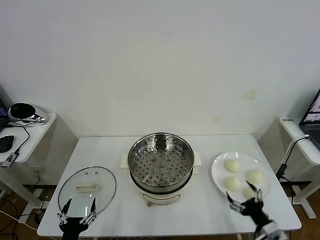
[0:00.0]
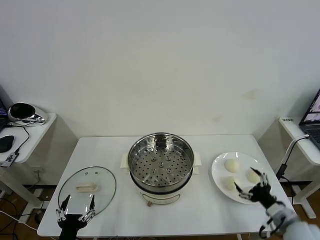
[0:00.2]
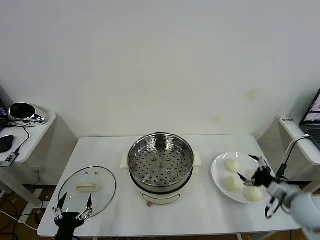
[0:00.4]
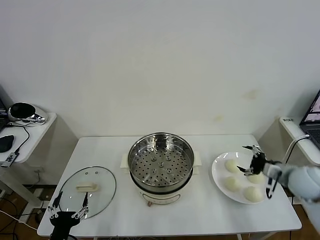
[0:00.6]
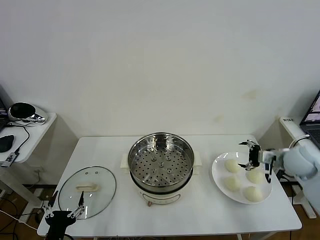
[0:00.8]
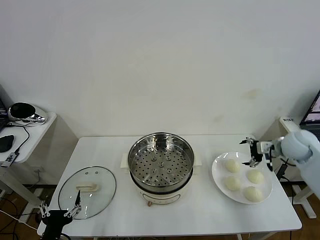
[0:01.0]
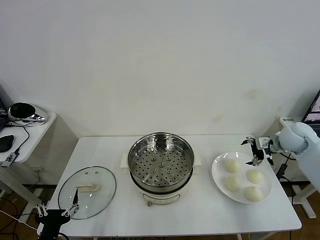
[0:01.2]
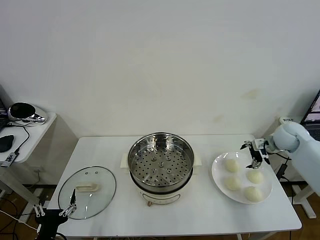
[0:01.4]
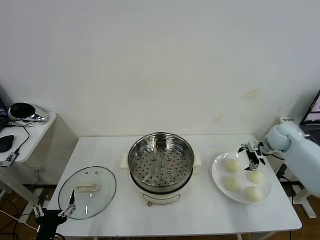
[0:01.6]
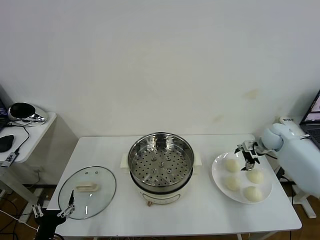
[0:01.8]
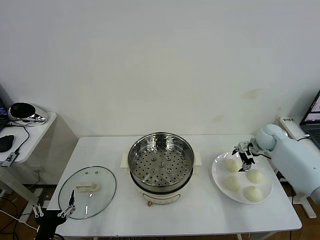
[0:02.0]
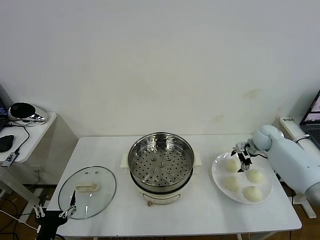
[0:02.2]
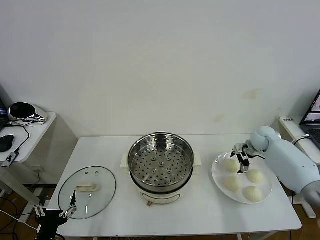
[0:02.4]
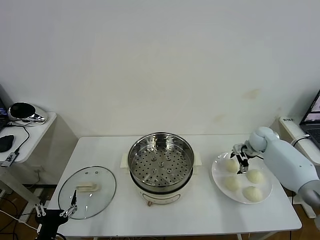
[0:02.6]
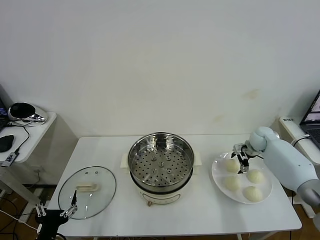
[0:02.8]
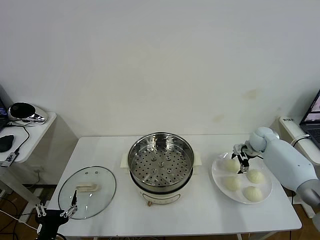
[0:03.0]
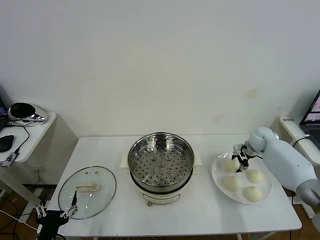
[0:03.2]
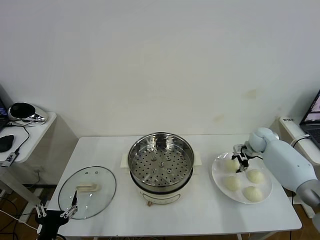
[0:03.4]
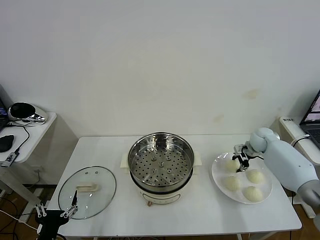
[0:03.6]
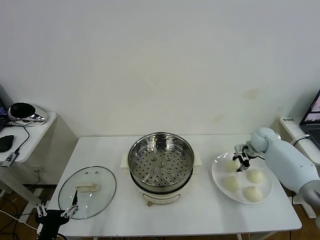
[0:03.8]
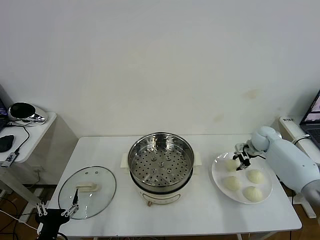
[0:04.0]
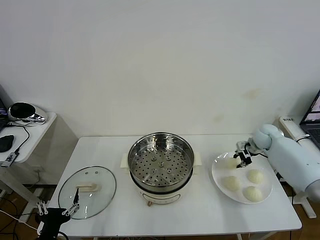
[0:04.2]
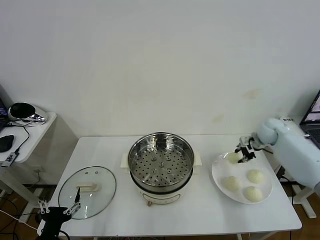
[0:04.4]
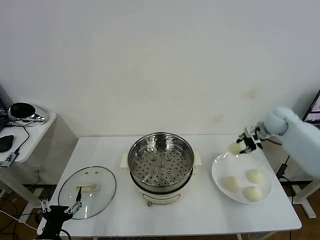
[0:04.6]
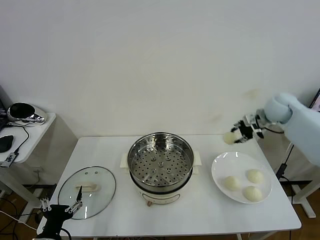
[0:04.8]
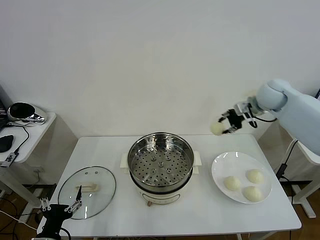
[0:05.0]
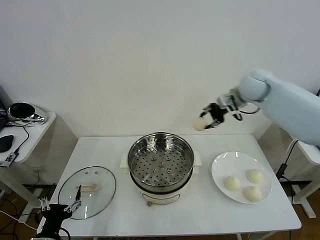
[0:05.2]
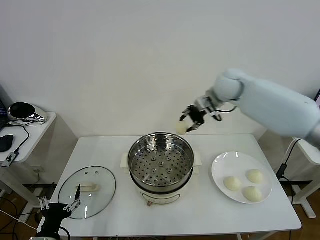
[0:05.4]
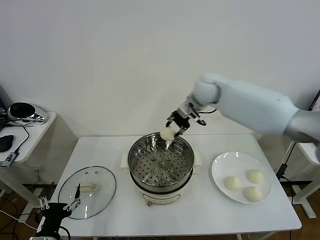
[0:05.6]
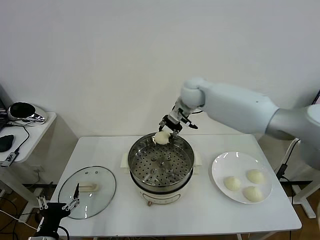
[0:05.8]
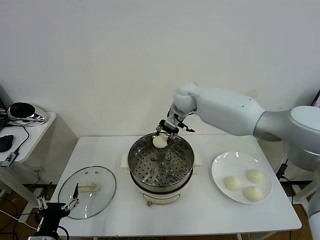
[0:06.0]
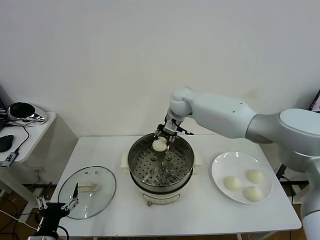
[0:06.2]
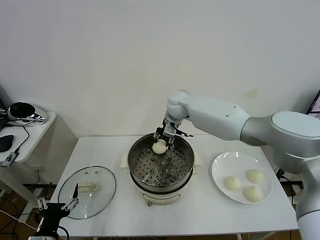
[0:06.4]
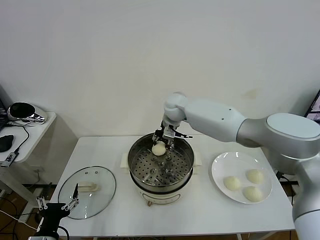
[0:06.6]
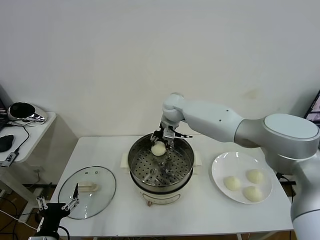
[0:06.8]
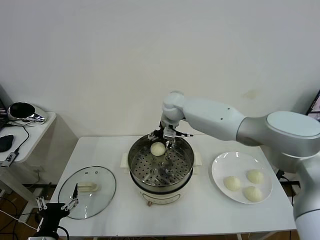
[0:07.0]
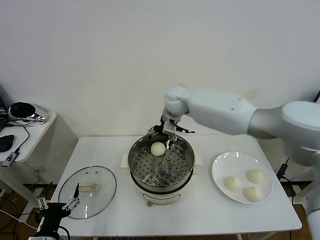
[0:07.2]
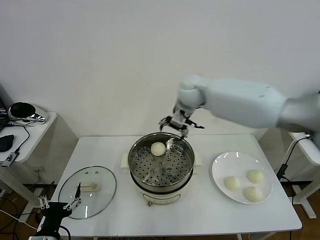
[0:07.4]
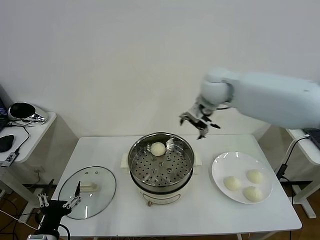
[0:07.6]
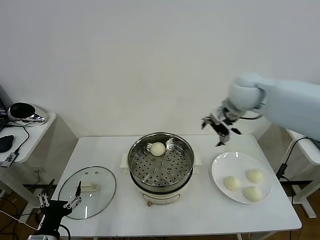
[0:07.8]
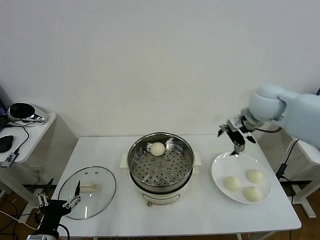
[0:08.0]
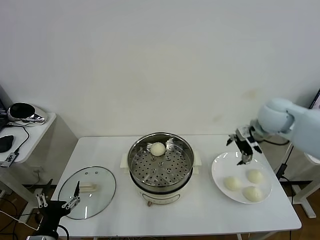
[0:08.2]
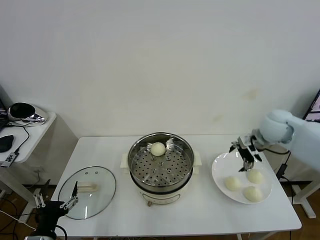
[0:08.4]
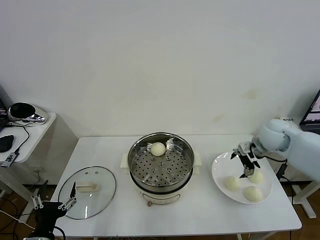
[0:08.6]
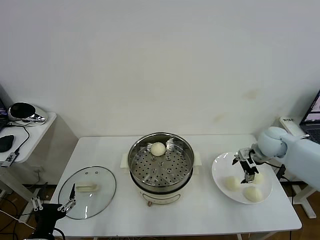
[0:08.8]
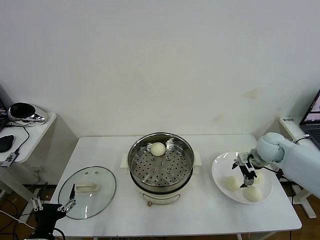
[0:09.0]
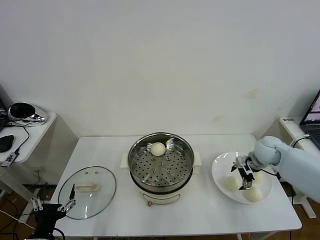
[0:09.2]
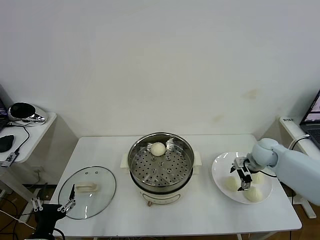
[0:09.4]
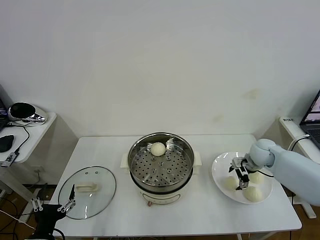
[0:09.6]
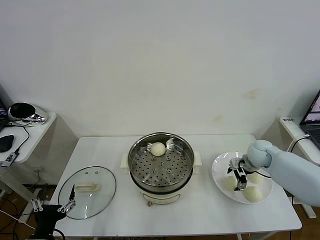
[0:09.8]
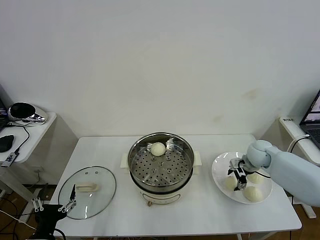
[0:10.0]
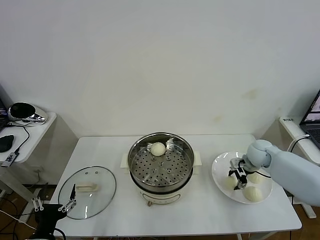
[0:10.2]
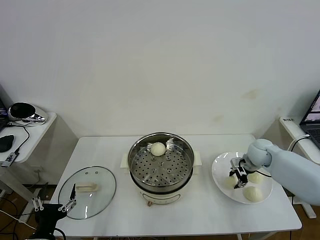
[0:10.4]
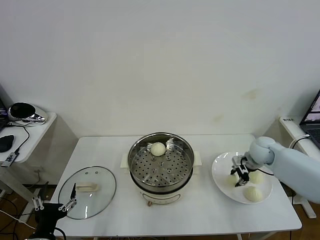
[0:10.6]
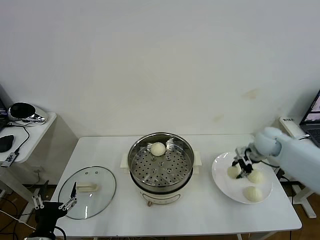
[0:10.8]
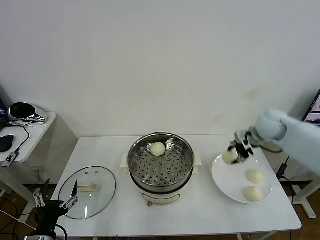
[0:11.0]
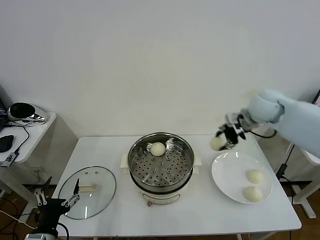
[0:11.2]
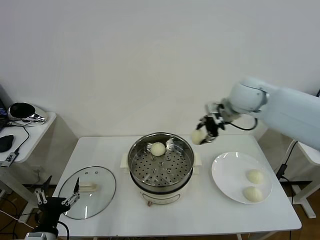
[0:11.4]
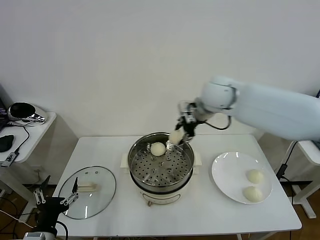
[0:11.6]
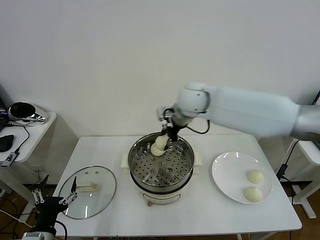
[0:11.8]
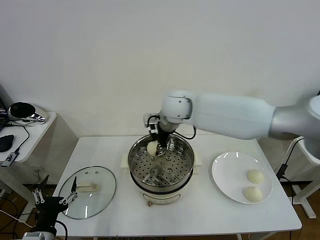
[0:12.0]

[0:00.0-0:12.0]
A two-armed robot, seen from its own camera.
Task of the whole recording: take steamed baozi put them in steamer then cover it.
Step, 0:00.0 to 0:03.4: Grasp the baozi in the plate with right gripper.
Step, 0:03.6 to 0:06.8: Place the baozi on the steamer with right gripper.
Step, 0:07.0 to 0:10.4: Grasp the baozi in the plate with right gripper.
0:01.6 to 0:03.0: The right gripper moves downward, about 5 cm, and closes its fingers.
0:03.0 to 0:04.4: The right gripper is displaced upward by approximately 10 cm, and closes its fingers.
0:04.4 to 0:06.0: The right gripper travels to the left by roughly 35 cm.
0:06.0 to 0:07.6: The right gripper travels to the right, upward and backward by about 20 cm, and opens.
0:07.6 to 0:09.0: The right gripper goes approximately 30 cm downward and to the right.
0:09.0 to 0:10.4: The right gripper closes.
0:10.4 to 0:12.0: The right gripper is displaced to the left and upward by roughly 40 cm.

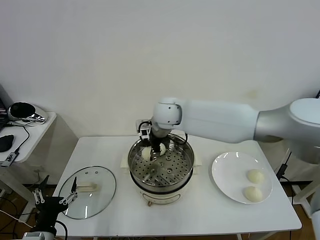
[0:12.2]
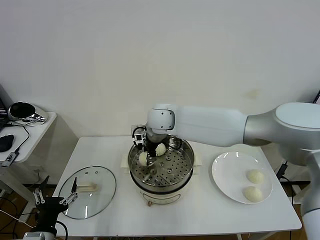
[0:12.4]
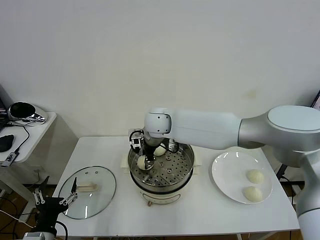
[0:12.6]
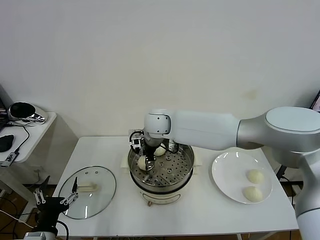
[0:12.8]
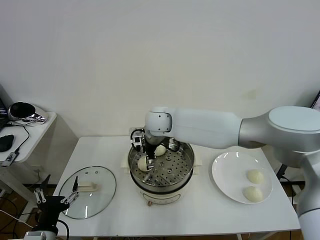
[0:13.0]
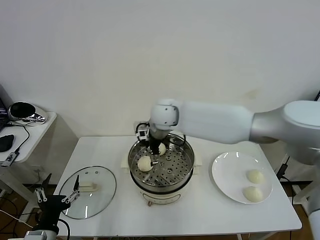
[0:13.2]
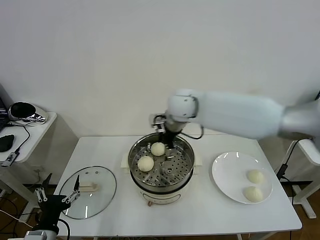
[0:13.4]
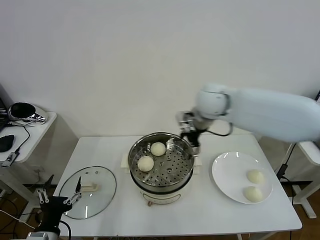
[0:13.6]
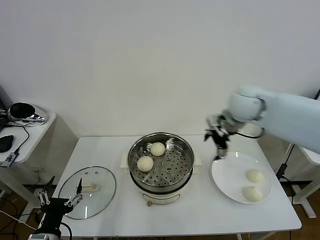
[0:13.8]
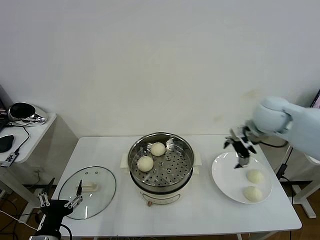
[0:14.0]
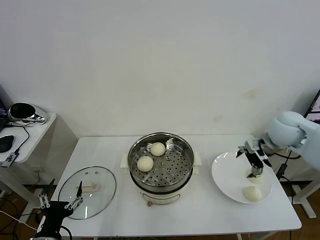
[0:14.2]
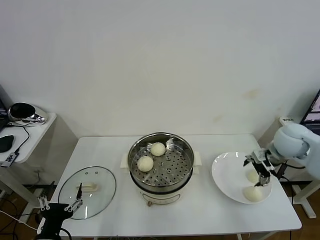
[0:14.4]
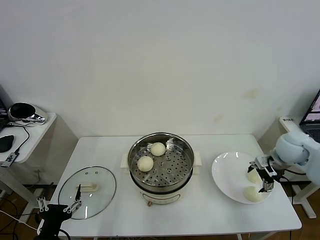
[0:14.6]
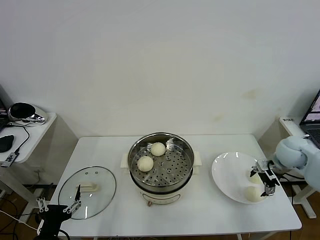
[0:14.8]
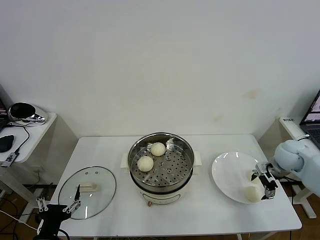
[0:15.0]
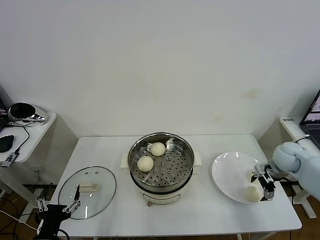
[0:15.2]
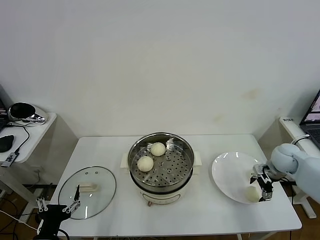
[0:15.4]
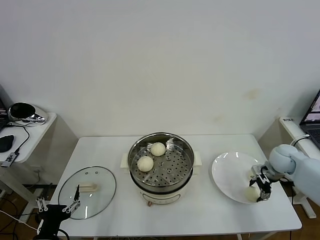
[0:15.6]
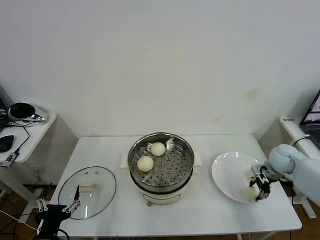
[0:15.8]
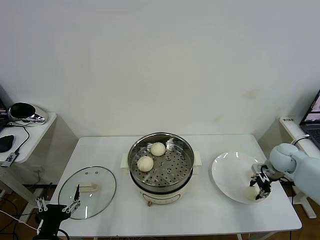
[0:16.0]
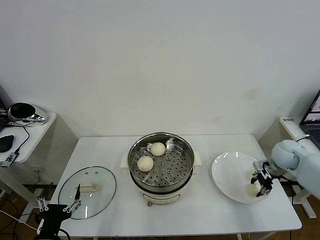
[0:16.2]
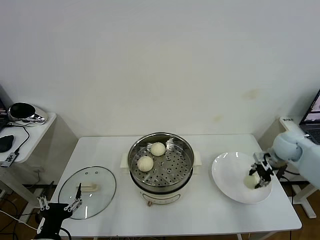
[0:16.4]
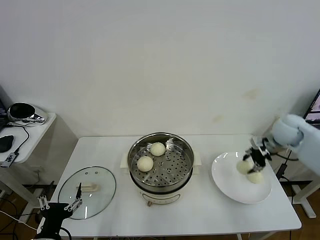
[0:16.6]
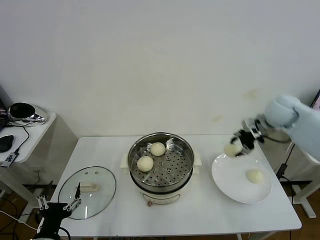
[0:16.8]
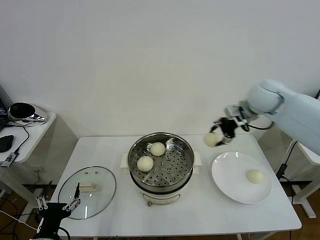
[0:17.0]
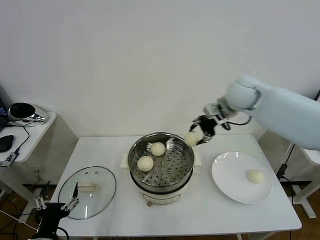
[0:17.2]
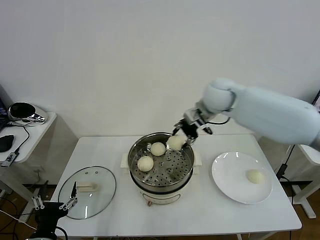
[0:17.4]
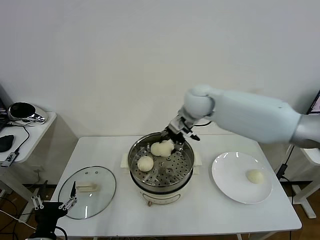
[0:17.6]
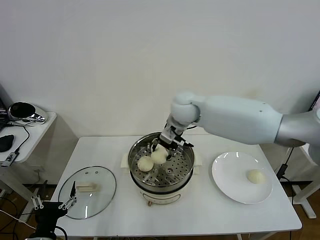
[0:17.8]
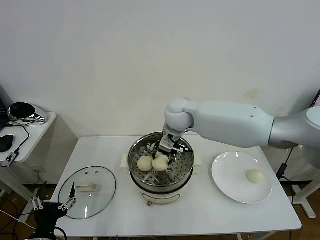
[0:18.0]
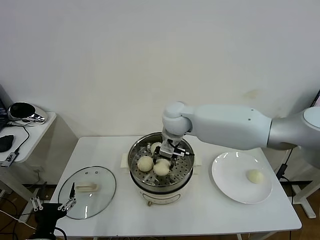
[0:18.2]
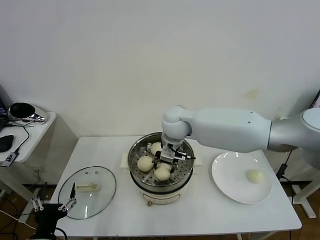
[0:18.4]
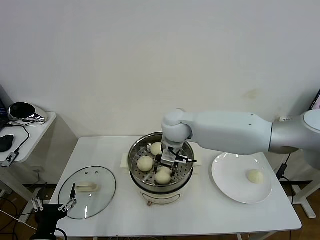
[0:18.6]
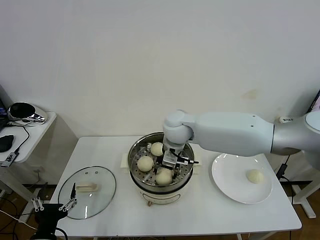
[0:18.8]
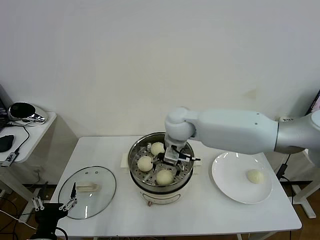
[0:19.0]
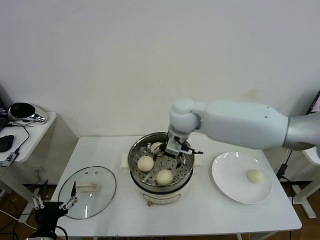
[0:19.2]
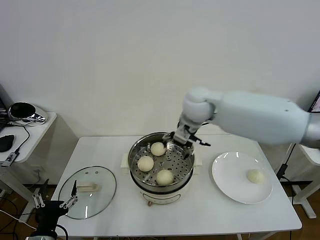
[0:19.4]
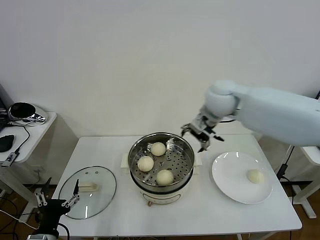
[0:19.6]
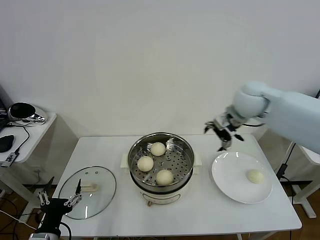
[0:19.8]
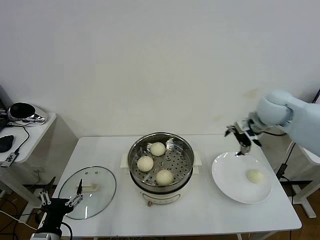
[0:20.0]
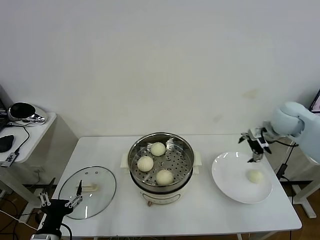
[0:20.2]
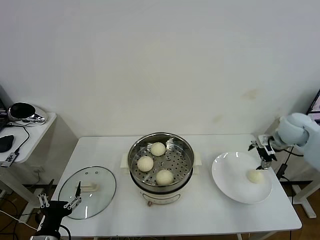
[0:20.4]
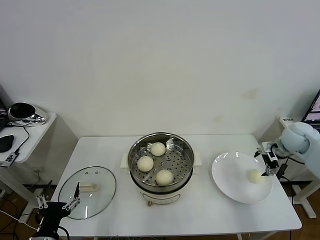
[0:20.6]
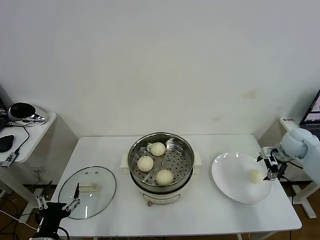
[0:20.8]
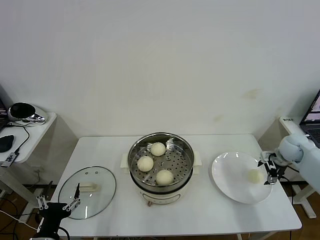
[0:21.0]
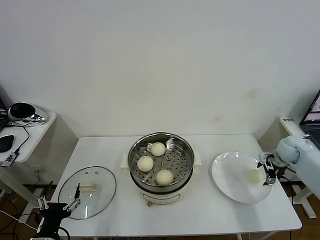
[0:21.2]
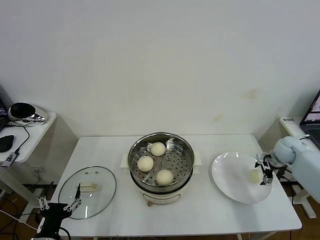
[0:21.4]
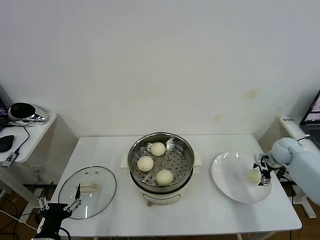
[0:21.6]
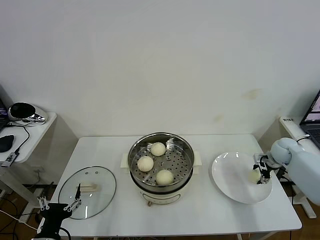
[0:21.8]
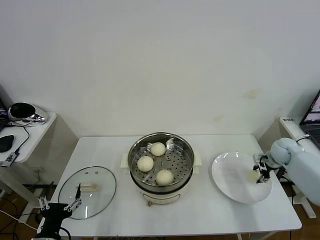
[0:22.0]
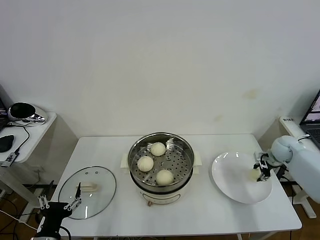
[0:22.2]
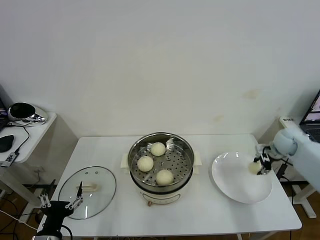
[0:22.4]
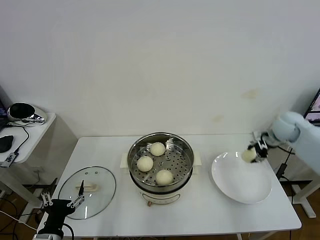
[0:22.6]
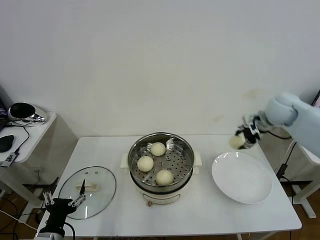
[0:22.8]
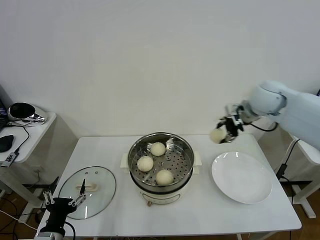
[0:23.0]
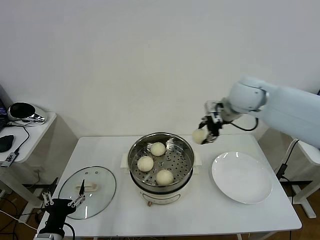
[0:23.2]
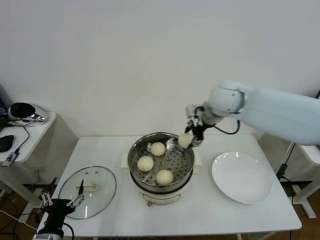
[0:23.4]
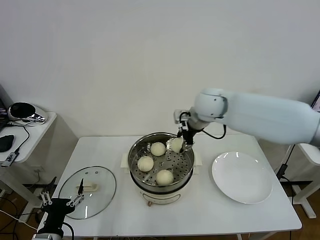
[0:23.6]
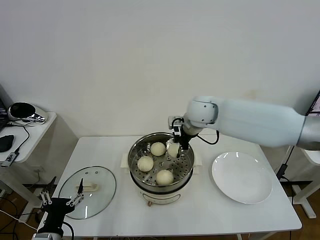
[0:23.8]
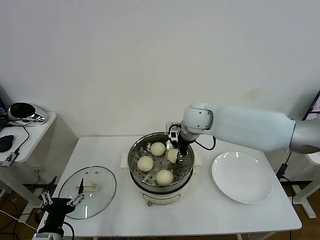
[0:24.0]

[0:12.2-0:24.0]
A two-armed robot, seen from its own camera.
Task of the whole recording: take steamed baozi put them in steamer then cover it.
Step, 0:13.2 to 0:15.8: Grasp the baozi in the plate with right gripper.
Step, 0:16.0 to 0:18.8: Place the baozi on the steamer with right gripper.
Step, 0:19.0 to 0:22.0: Grasp the baozi in the plate with right gripper.
0:12.2 to 0:13.6: The right gripper moves to the right, roughly 20 cm, and opens its fingers.
0:13.6 to 0:15.2: The right gripper travels to the right and downward by some 30 cm.
0:15.2 to 0:16.6: The right gripper is displaced upward by roughly 10 cm, and closes.
0:16.6 to 0:18.2: The right gripper goes about 35 cm to the left.
0:18.2 to 0:19.6: The right gripper travels to the right and upward by about 15 cm, and opens up.
0:19.6 to 0:21.0: The right gripper heads to the right and downward, covering about 35 cm.
0:21.0 to 0:22.6: The right gripper heads upward and to the left, covering about 10 cm, and closes up.
0:22.6 to 0:24.0: The right gripper moves to the left, about 30 cm.
